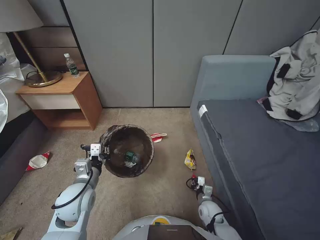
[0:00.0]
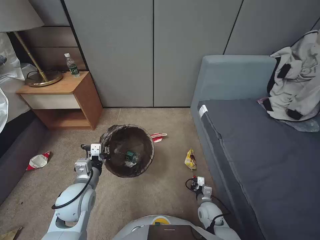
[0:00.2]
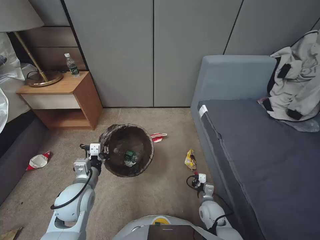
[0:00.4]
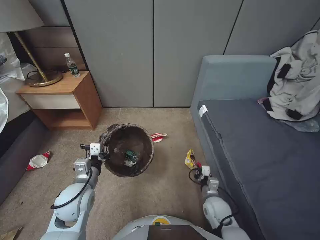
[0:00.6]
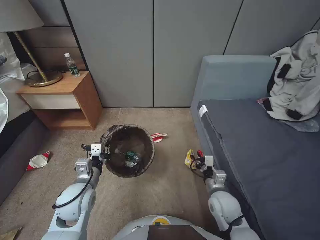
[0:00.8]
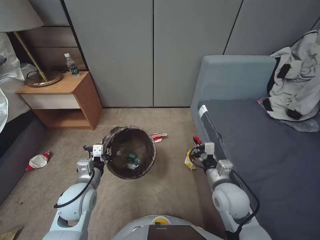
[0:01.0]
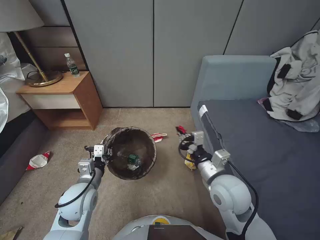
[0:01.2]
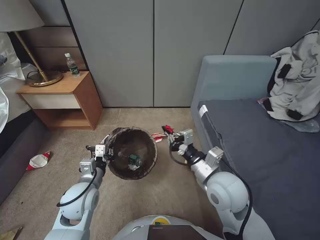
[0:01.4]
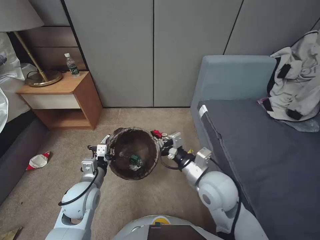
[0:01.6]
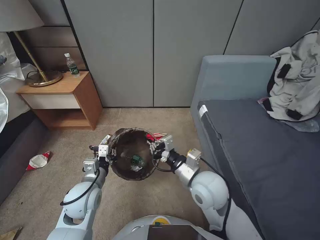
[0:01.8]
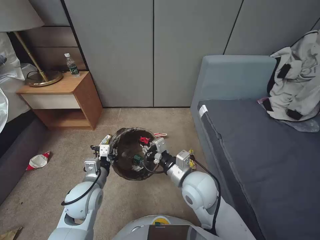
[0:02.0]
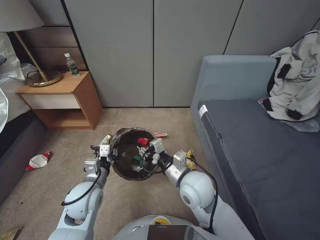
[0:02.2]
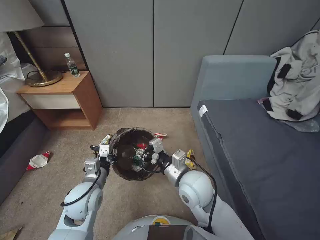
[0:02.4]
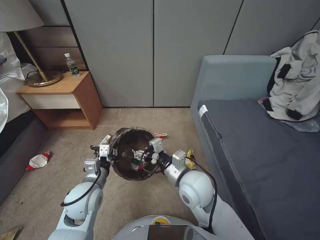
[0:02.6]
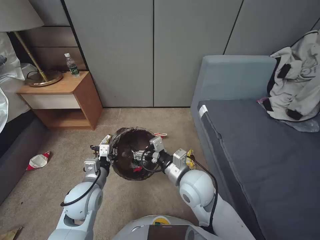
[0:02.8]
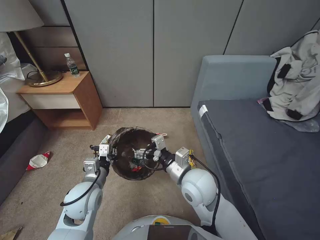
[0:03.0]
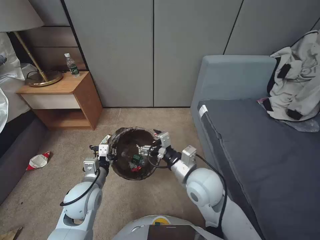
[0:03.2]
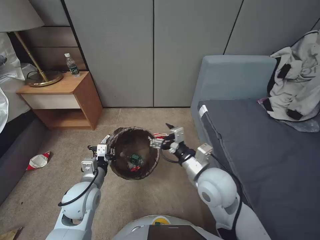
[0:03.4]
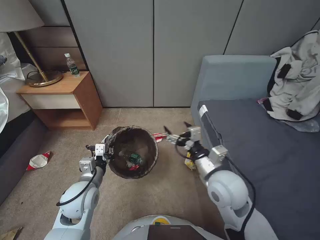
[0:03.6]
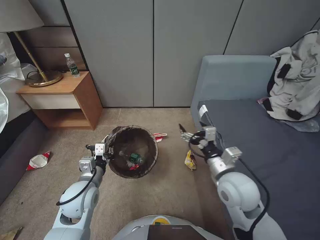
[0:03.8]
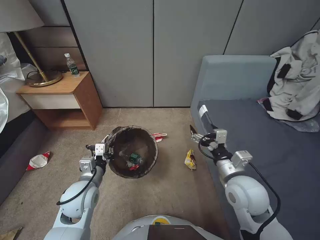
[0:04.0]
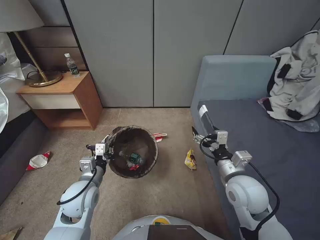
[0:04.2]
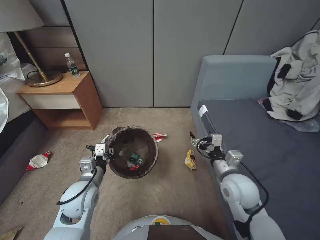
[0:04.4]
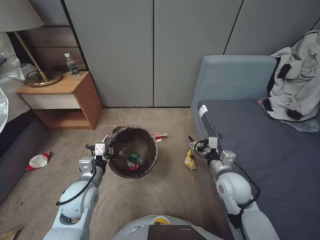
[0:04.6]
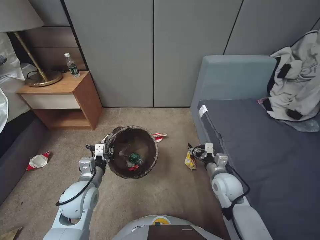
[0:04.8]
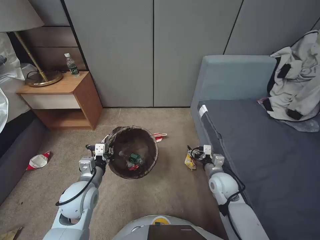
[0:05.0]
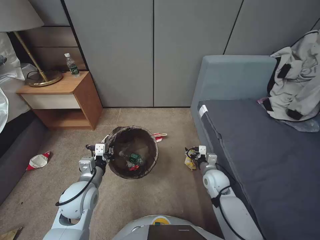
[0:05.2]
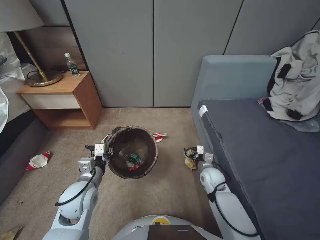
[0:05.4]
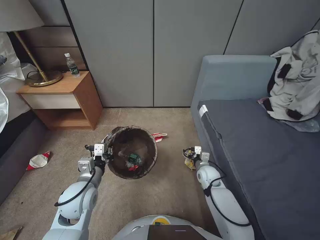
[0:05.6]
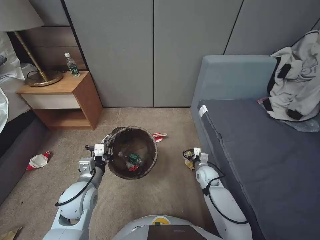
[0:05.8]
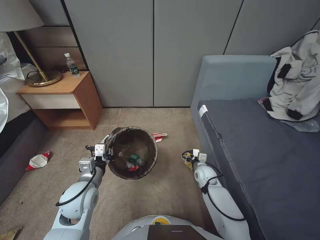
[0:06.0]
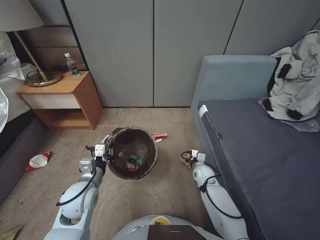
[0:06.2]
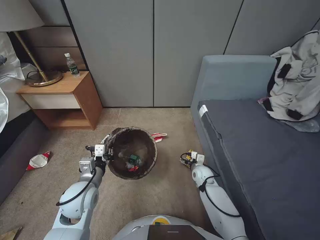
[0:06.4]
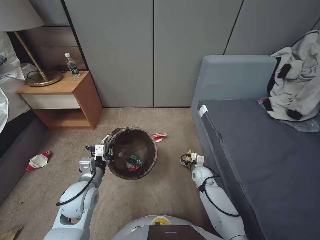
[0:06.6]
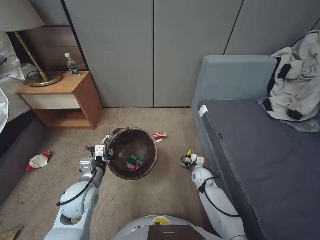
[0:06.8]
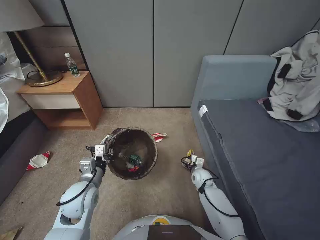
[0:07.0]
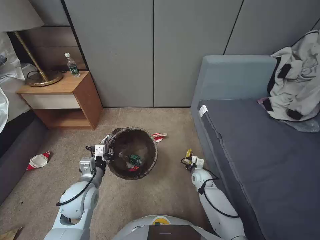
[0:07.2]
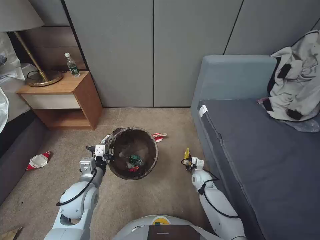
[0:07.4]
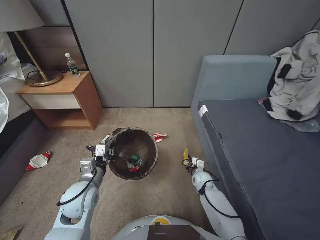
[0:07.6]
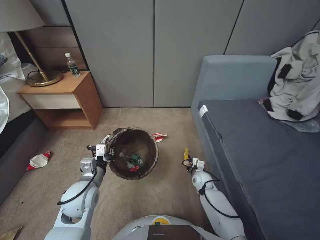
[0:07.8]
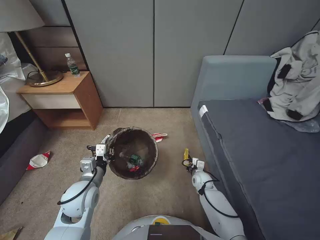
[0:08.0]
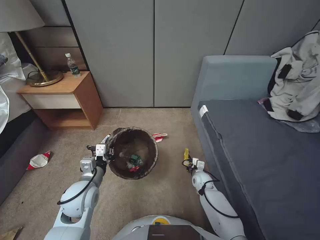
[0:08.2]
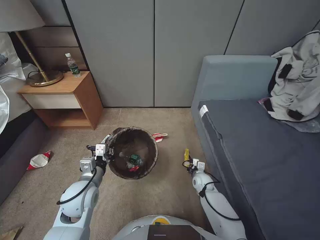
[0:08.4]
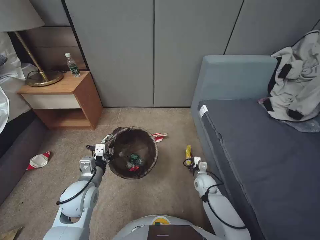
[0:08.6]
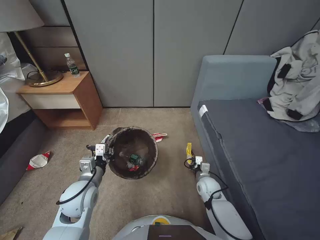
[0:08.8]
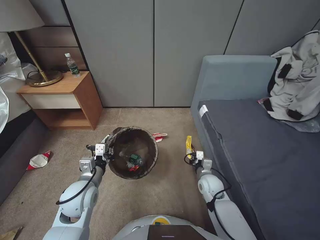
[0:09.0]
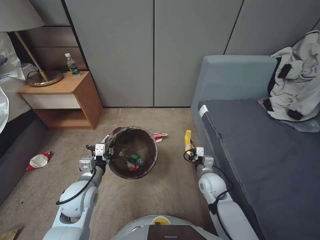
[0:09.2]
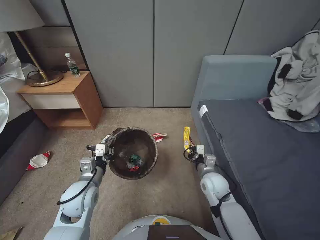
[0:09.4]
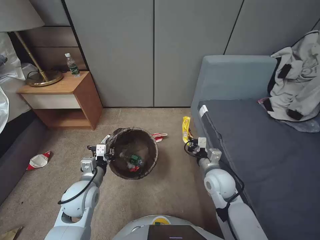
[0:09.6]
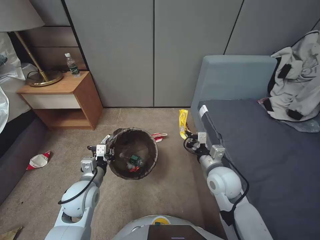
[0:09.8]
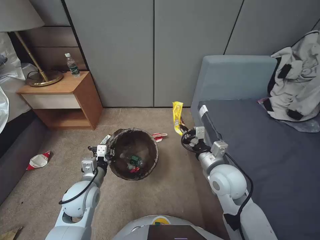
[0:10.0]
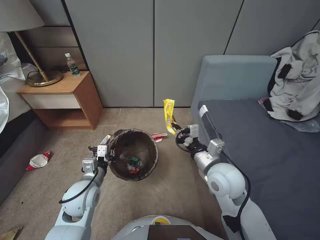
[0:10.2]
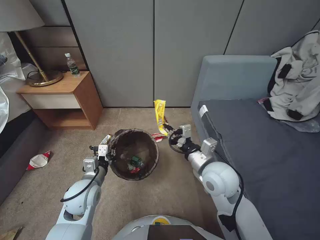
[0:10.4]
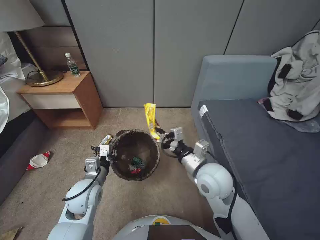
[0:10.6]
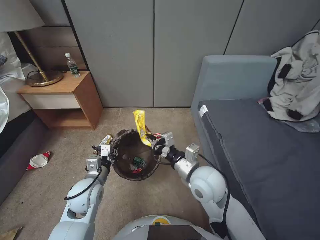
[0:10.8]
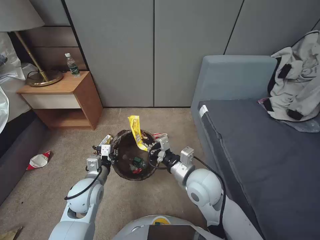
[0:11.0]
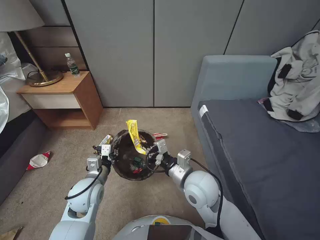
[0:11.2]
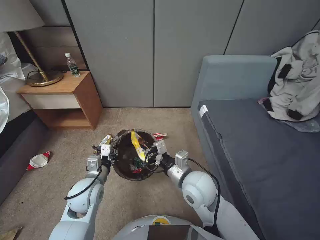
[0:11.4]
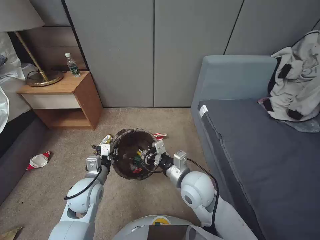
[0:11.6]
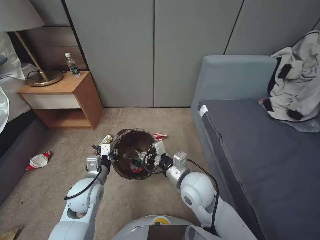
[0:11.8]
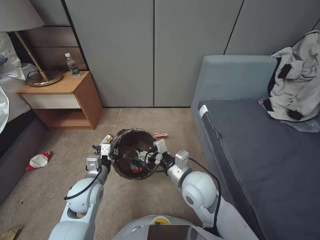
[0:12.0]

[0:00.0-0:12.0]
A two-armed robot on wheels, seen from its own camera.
Task of the whole recording: Pick up the trash bin, then pick up the garbage from the floor and place it into the trash bin.
0:00.0 to 0:01.6: The right gripper is displaced upward by some 35 cm.
0:01.6 to 0:03.0: The right gripper travels to the left by approximately 5 cm, and opens its fingers.
0:03.0 to 0:04.4: The right gripper moves to the right, roughly 15 cm.
0:04.4 to 0:06.0: The right gripper heads downward and forward, covering about 25 cm.
0:06.0 to 0:07.6: The right gripper shifts roughly 5 cm downward, and closes up.
0:07.6 to 0:09.0: The right gripper heads upward and backward, covering approximately 10 cm.
0:09.0 to 0:10.4: The right gripper is displaced upward by about 25 cm.
0:10.4 to 0:12.0: The right gripper heads to the left, covering some 5 cm, and opens.

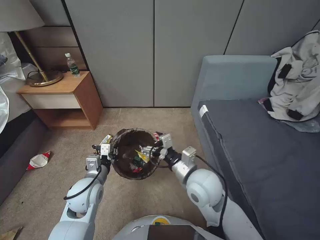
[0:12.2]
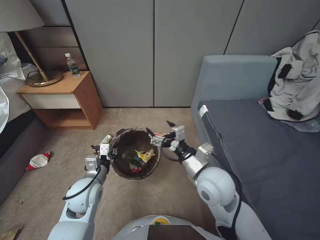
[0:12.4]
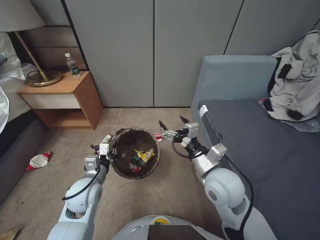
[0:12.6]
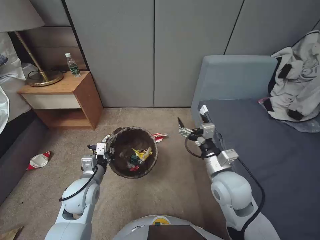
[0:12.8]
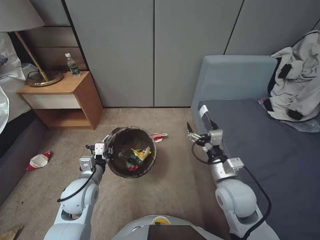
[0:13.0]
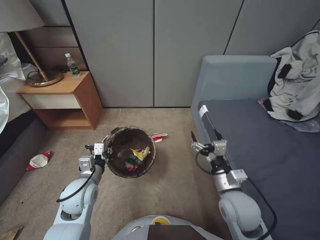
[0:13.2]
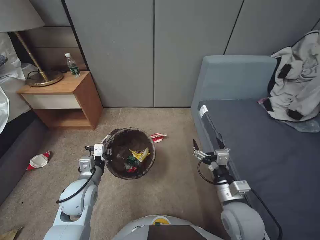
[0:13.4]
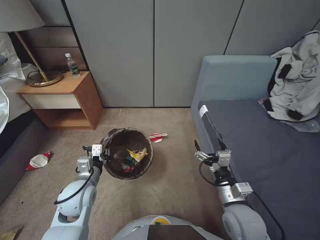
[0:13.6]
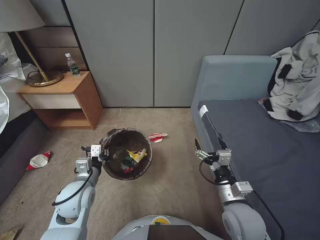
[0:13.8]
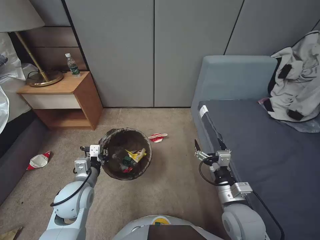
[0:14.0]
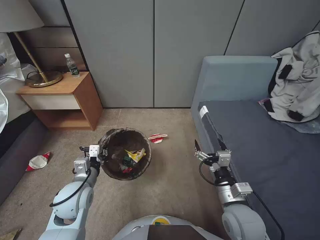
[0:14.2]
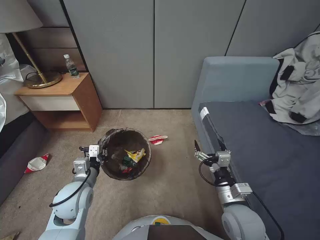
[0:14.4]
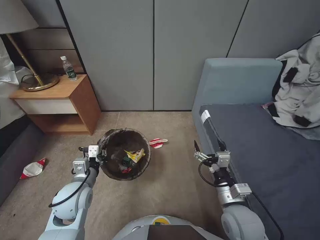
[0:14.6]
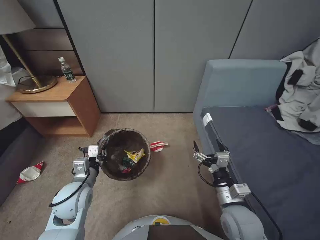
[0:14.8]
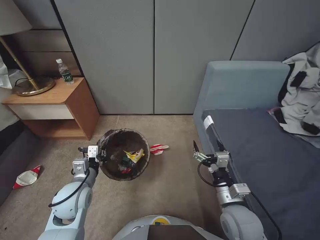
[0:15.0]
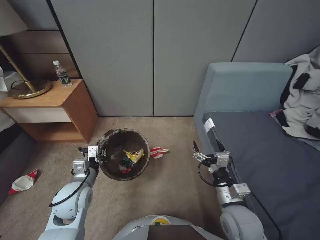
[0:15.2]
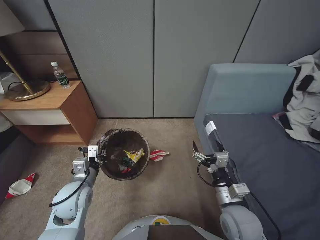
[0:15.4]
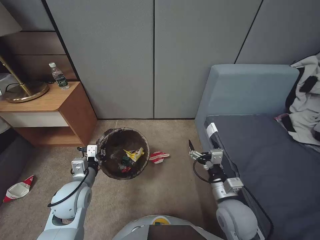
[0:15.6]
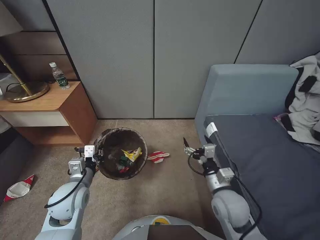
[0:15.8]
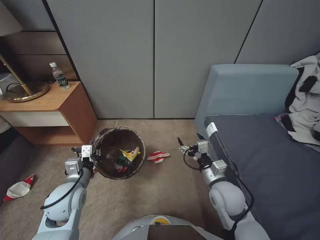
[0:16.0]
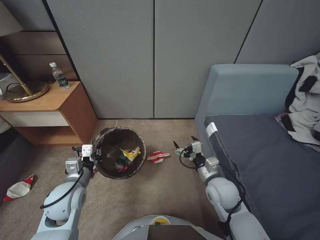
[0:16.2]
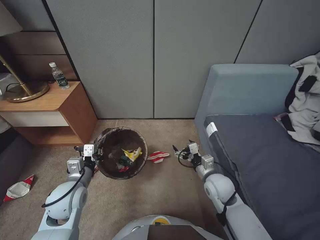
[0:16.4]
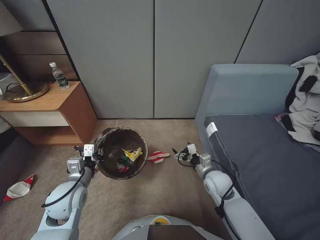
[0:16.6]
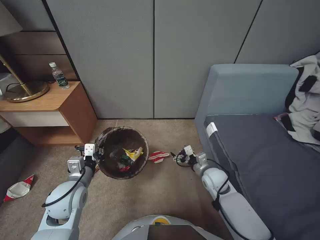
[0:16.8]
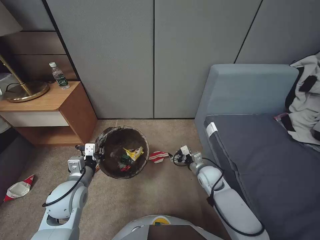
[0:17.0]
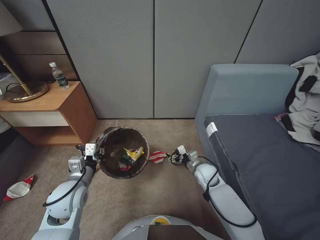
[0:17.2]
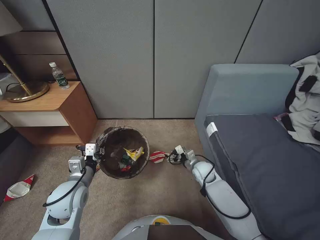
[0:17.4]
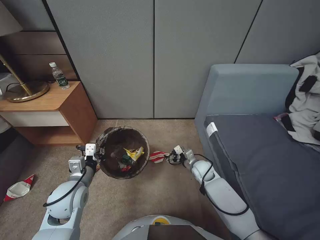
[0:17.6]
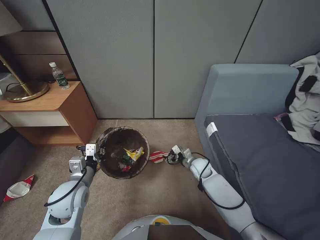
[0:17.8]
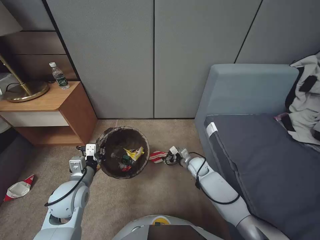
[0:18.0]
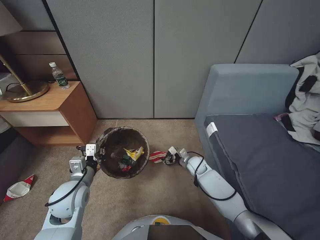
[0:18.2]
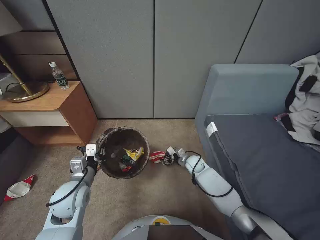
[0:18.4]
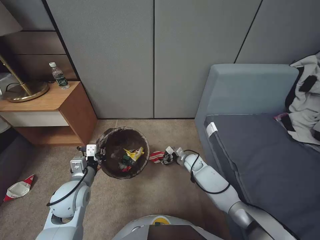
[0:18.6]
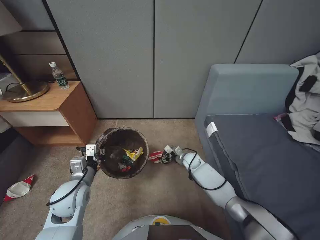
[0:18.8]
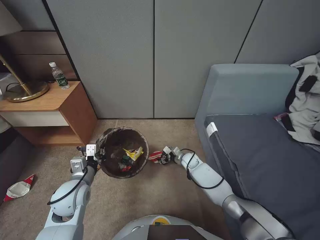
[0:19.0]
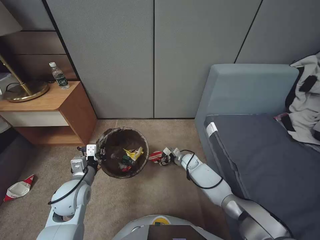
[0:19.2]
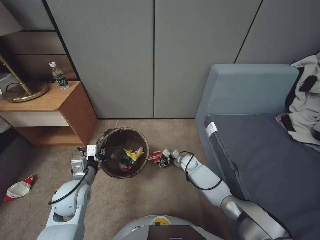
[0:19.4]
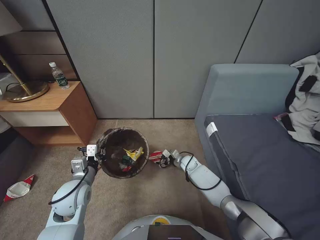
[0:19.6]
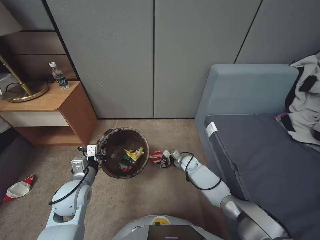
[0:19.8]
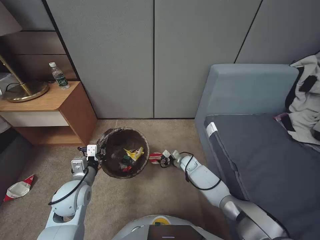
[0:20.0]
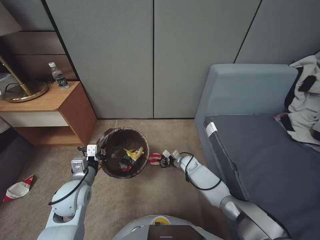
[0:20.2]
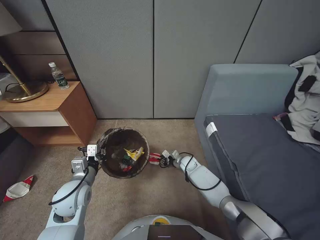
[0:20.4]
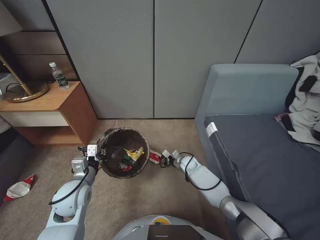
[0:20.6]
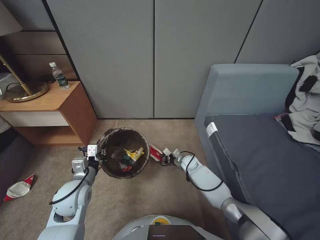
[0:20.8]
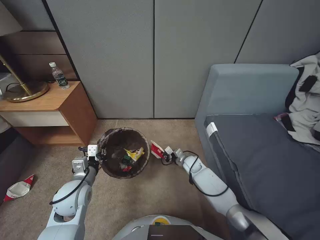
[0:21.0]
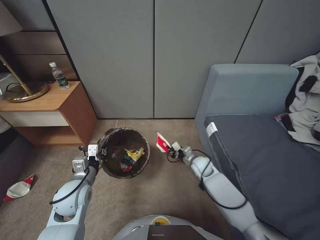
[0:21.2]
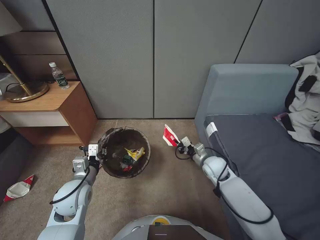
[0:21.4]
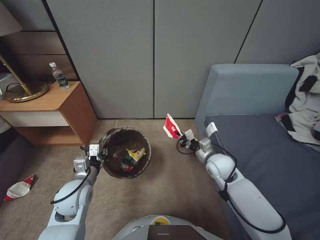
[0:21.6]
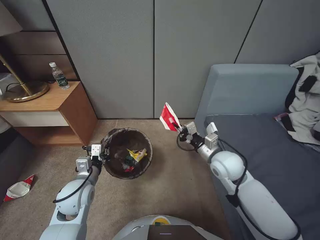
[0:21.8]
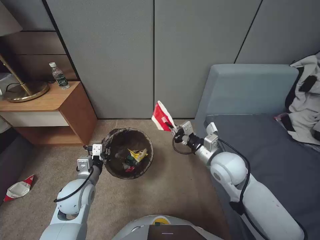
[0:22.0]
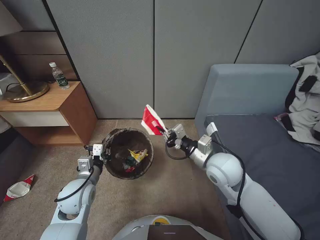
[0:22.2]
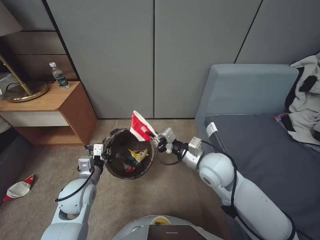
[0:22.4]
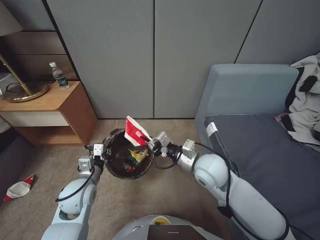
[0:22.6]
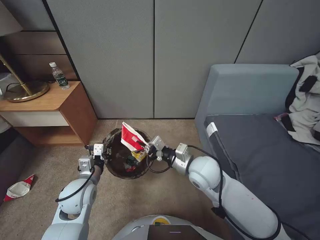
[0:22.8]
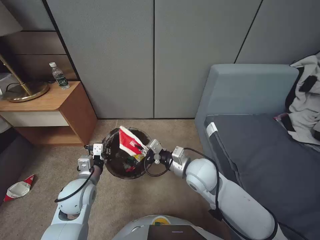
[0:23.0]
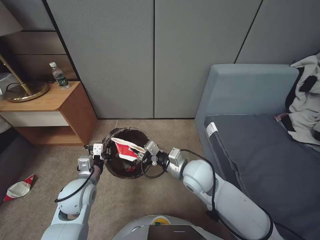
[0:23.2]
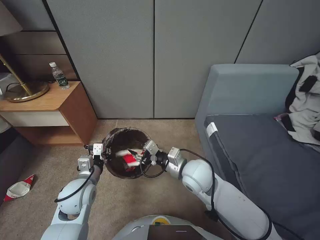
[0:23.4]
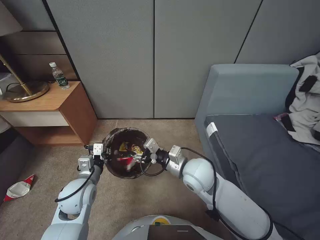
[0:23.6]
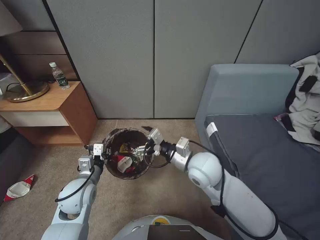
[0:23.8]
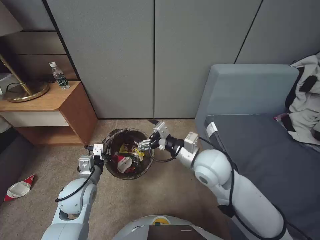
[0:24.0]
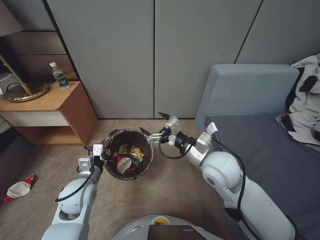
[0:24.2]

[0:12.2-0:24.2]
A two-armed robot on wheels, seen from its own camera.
Task of the whole recording: Pick up the trash bin, then pick up the garbage from the floor and place it into the trash bin.
0:12.2 to 0:13.8: The right gripper goes roughly 15 cm to the right, backward and downward.
0:15.2 to 0:16.6: The right gripper goes about 15 cm forward and downward.
0:16.6 to 0:18.2: The right gripper goes about 15 cm forward and downward.
0:18.2 to 0:19.8: The right gripper goes roughly 5 cm downward.
0:19.8 to 0:21.2: The right gripper shifts roughly 5 cm upward, and closes.
0:21.2 to 0:22.6: The right gripper goes some 25 cm upward and backward.
0:22.6 to 0:24.2: The right gripper opens.
